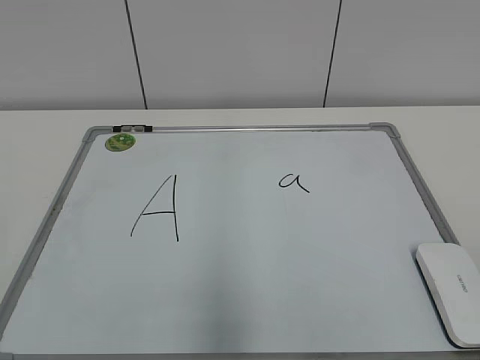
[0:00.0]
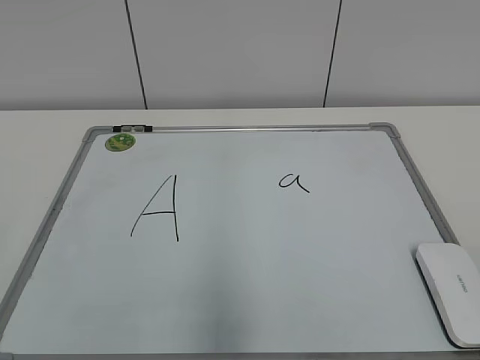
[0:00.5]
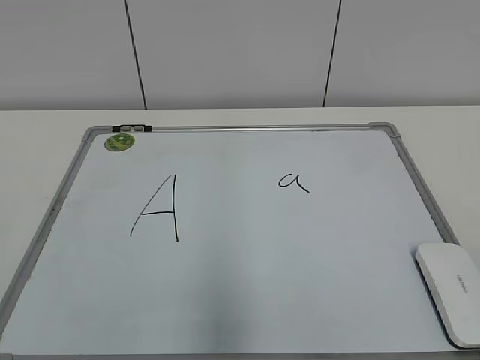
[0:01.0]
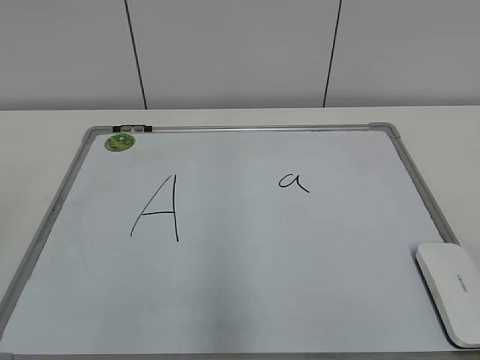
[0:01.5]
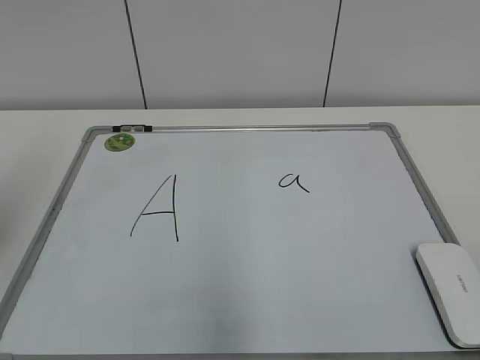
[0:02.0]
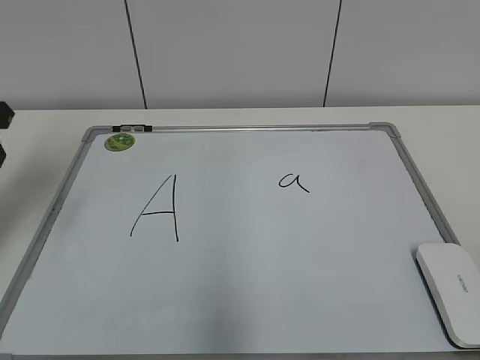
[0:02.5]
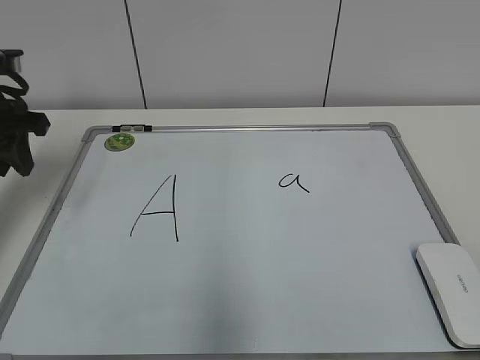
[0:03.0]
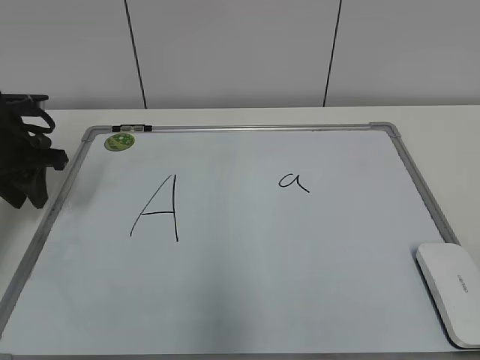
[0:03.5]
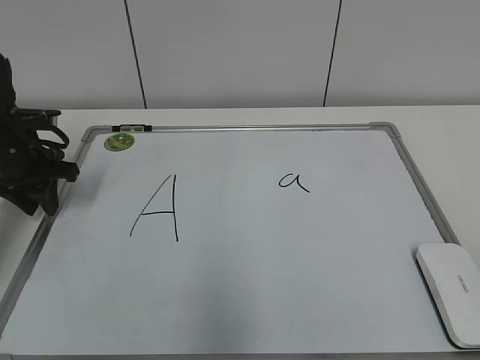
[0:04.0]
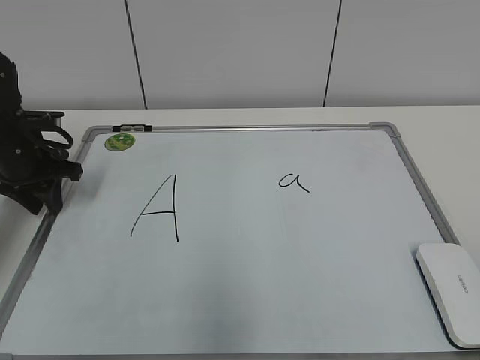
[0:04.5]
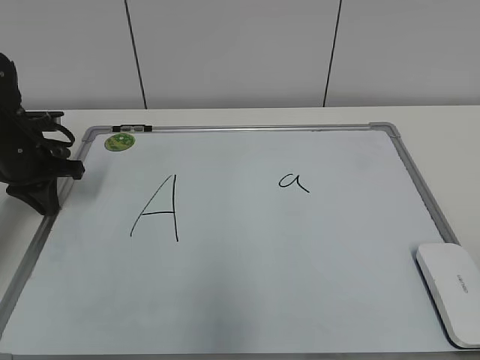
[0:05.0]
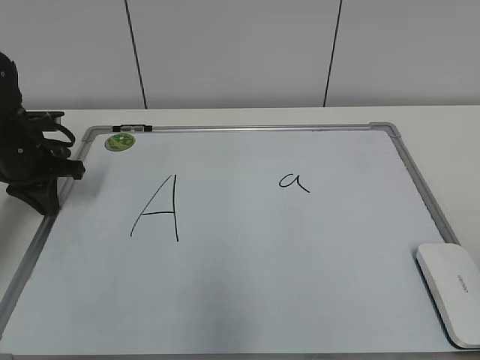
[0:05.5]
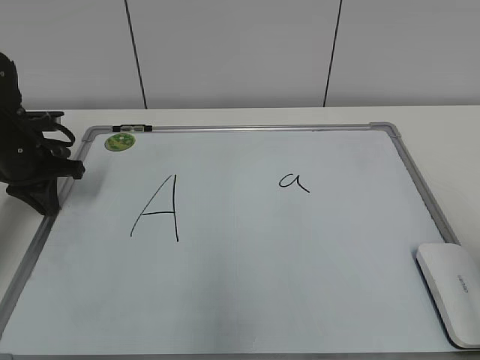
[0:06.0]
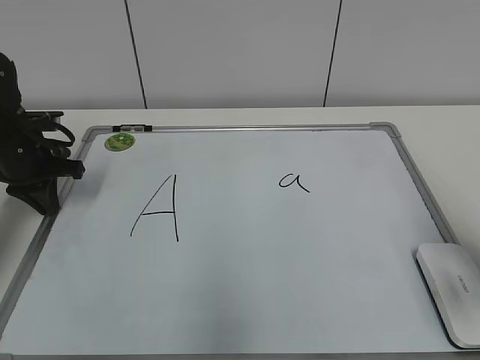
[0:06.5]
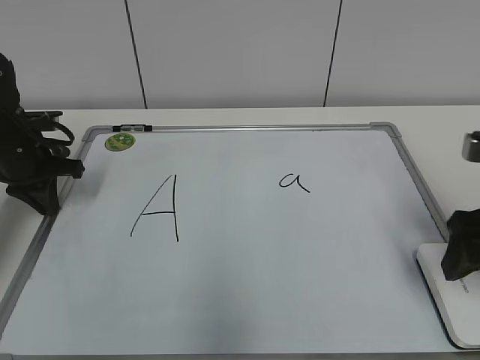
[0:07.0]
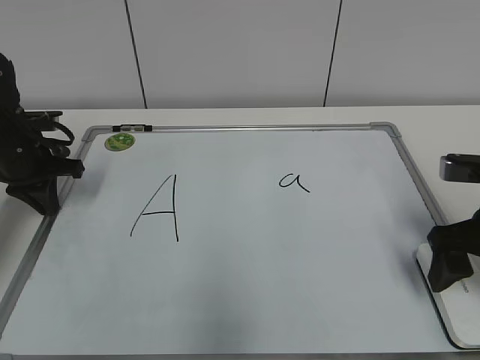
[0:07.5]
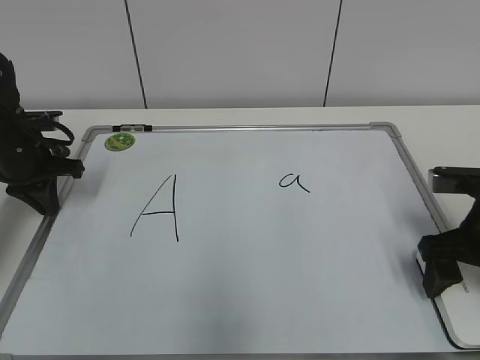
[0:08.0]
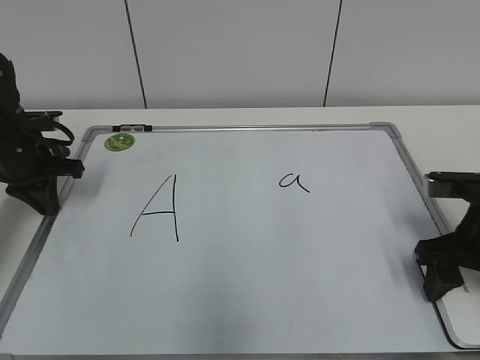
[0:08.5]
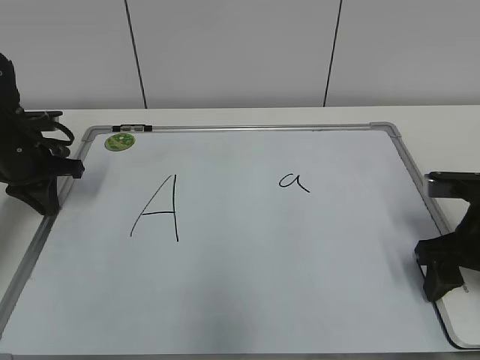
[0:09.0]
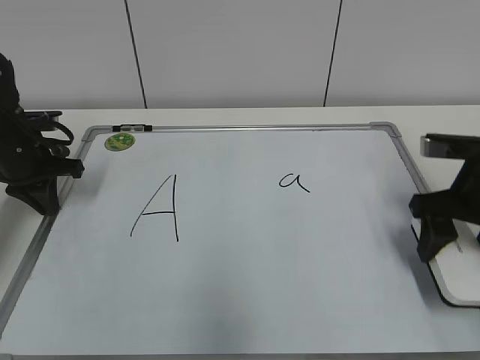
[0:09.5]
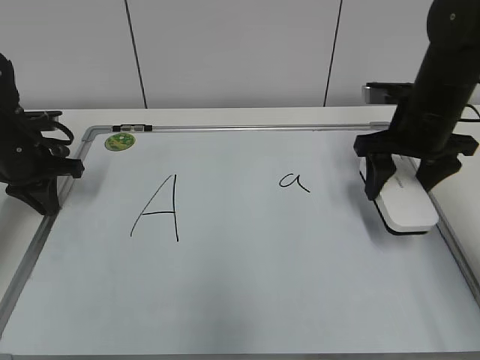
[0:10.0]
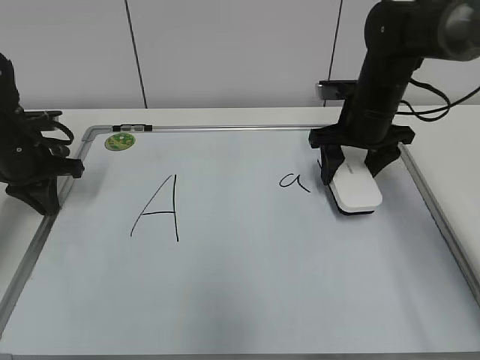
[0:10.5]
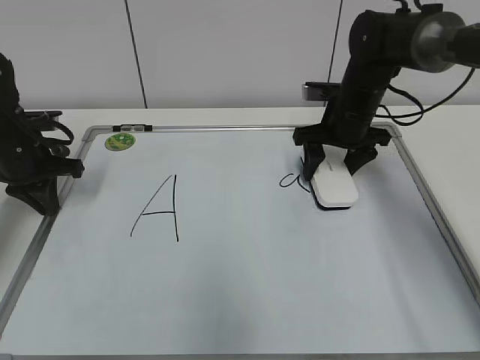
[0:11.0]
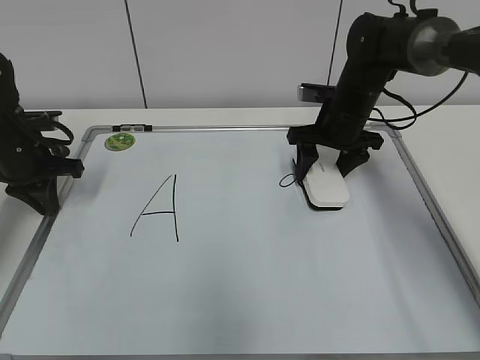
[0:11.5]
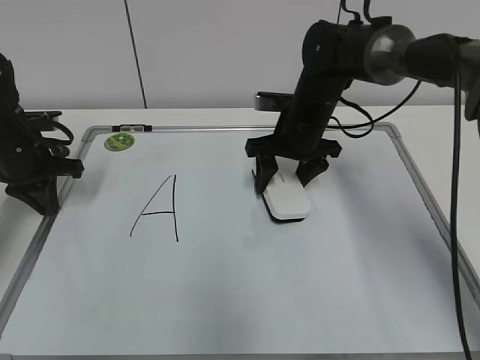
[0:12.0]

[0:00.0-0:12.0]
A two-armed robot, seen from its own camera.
Task of the whole recording: pick up the eraser on the blackboard and erase the letter "a".
Step, 0.0 to 4.5 s: Hold the drawing board steady with your left hand.
Step, 5.0 to 9.0 s: Grab the eraser with your right hand.
2.0 to 4.0 s: The left gripper goes about 25 cm forward and downward.
4.0 to 6.0 s: The left gripper closes.
6.0 to 8.0 s: The right gripper goes approximately 20 cm forward and downward, and opens up.
8.0 to 10.0 s: The right gripper heads forward and upward, covering roughly 15 cm, and closes.
10.0 to 12.0 s: The right gripper shifts about 15 cm to the left, forward and downward.

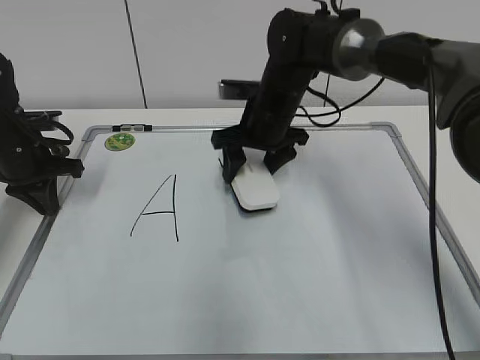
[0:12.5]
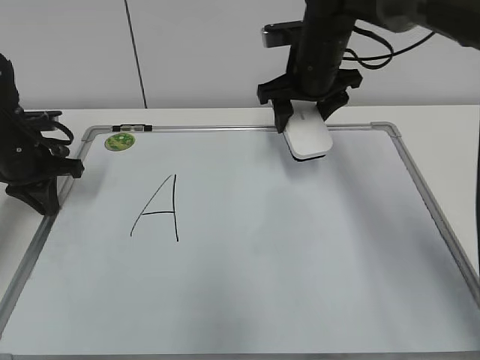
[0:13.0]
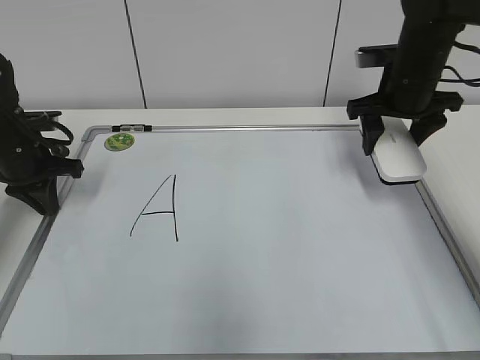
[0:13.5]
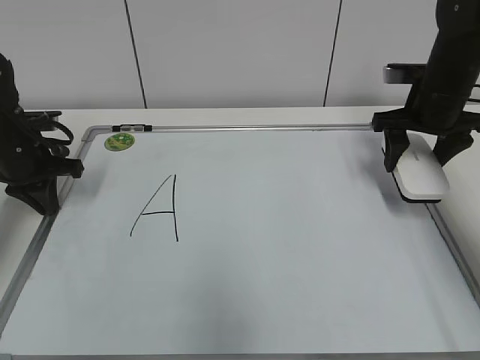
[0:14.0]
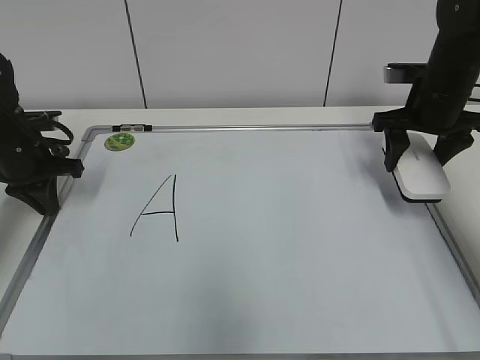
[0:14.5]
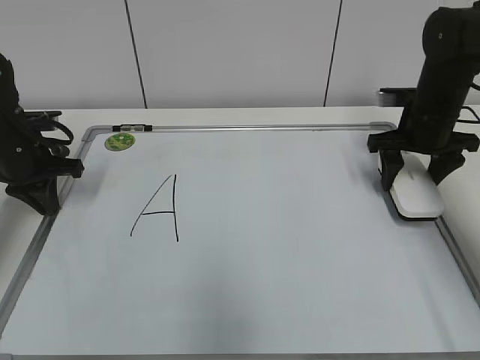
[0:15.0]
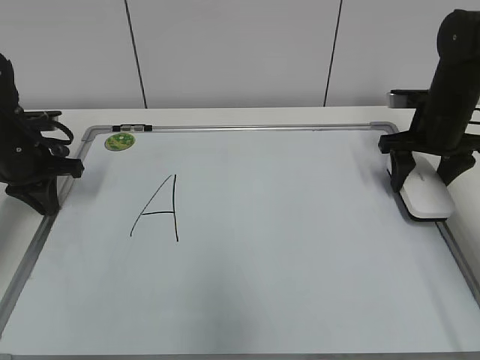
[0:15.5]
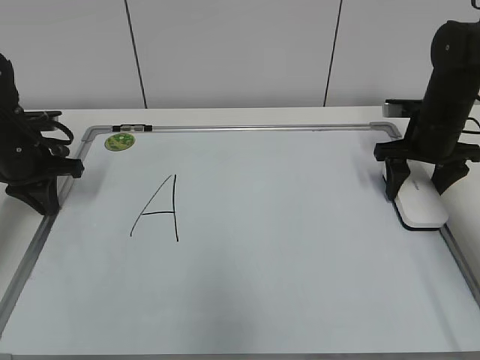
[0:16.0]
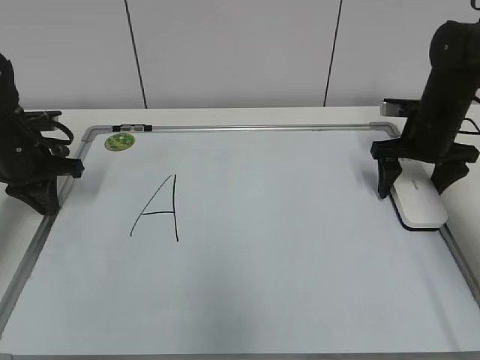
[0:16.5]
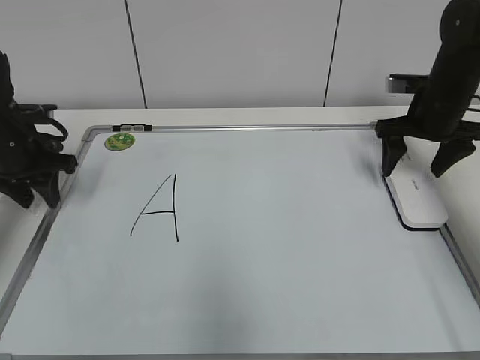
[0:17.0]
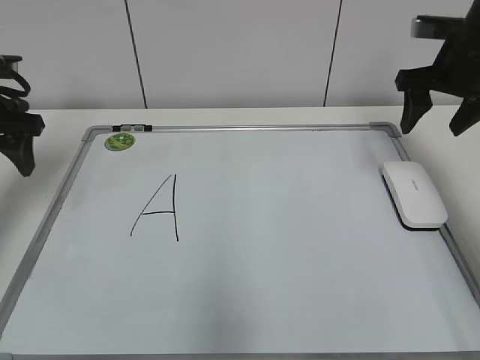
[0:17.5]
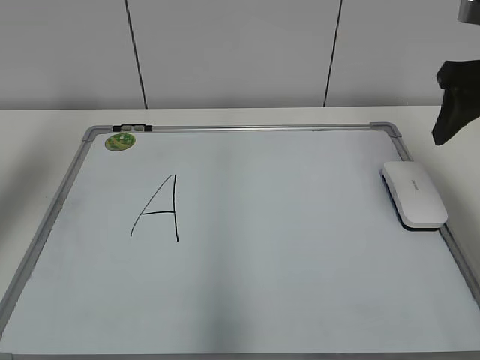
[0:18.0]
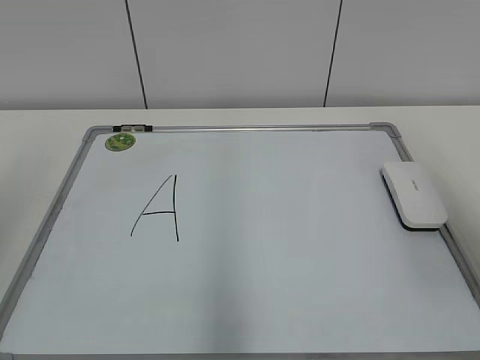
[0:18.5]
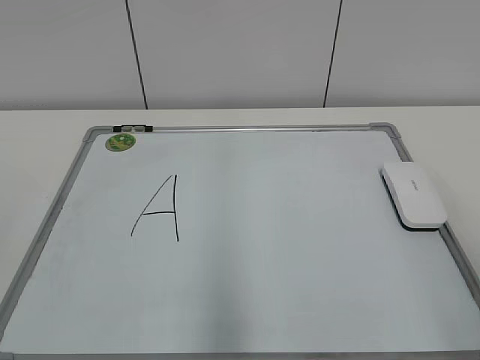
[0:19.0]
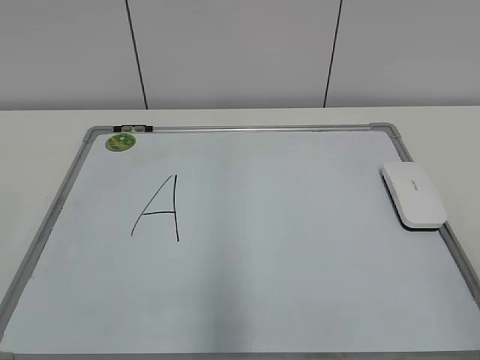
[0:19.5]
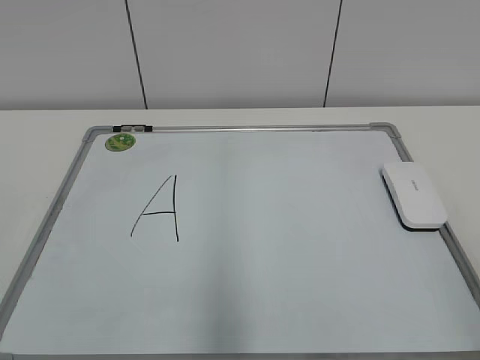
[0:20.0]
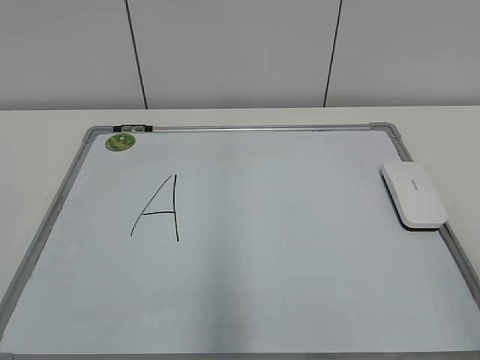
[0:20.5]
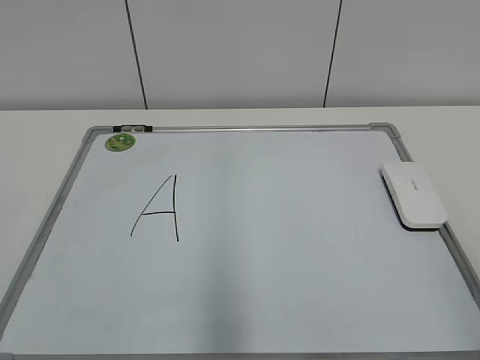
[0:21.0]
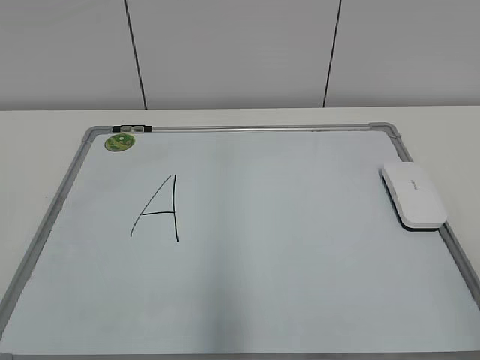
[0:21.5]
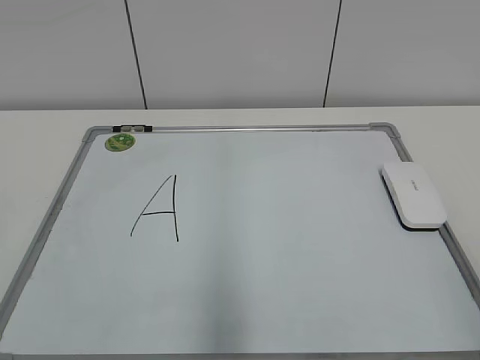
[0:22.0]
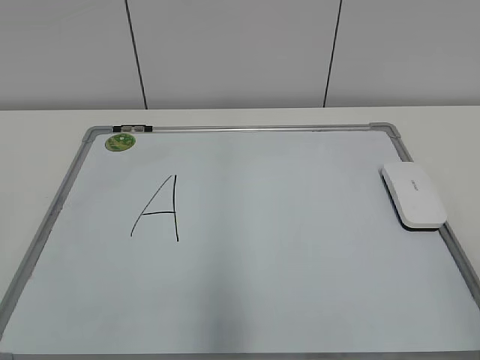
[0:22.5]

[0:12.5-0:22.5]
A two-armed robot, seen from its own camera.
Task of the whole recording: pick up the eraser on the blackboard and erase the letter "a".
12.5 to 14.5 s: The right gripper goes roughly 20 cm to the right.
14.5 to 16.5 s: The right gripper heads downward, covering roughly 5 cm, and opens up.
16.5 to 18.5 s: The grippers both shift backward and upward by approximately 35 cm. The right gripper closes up, while the left gripper opens up.
18.5 to 20.5 s: The right gripper goes some 20 cm backward and downward.

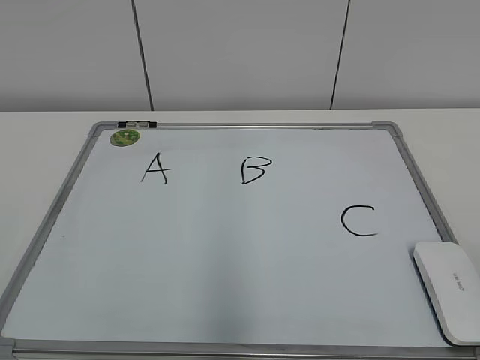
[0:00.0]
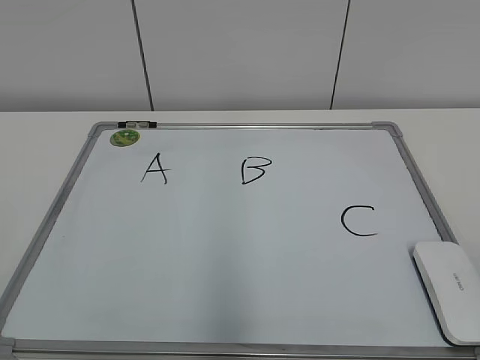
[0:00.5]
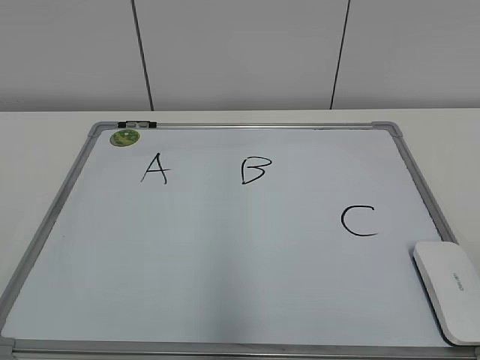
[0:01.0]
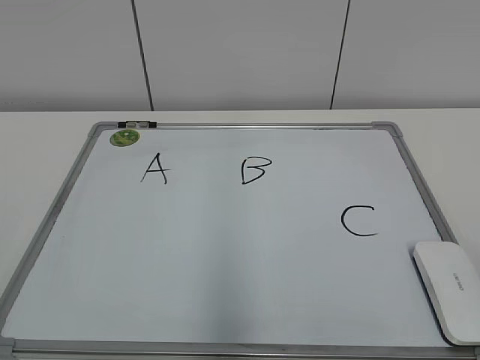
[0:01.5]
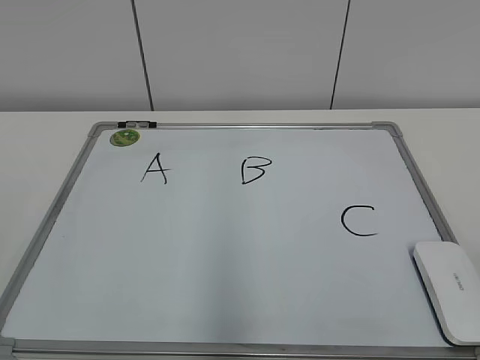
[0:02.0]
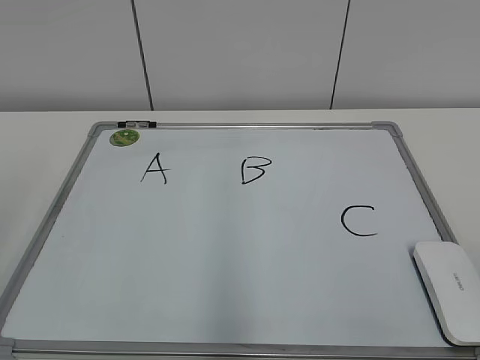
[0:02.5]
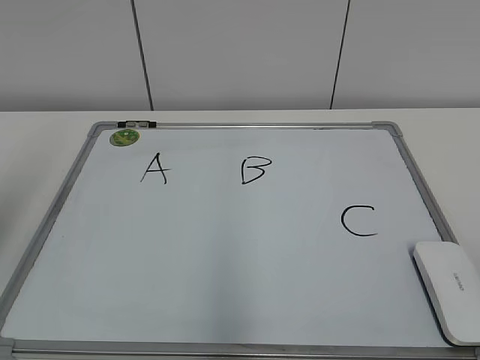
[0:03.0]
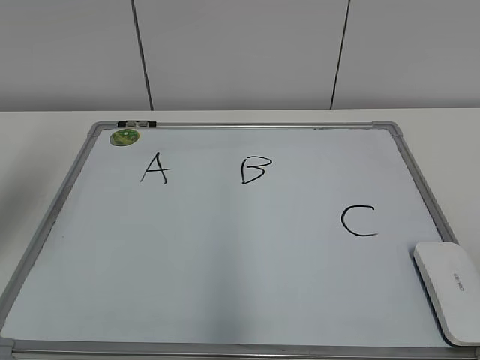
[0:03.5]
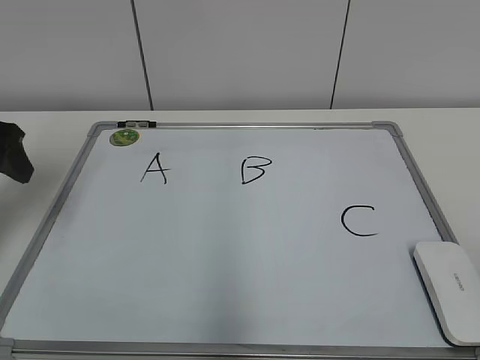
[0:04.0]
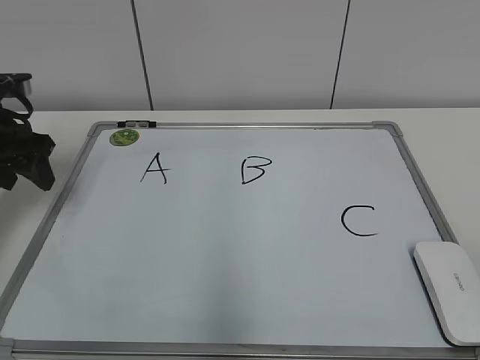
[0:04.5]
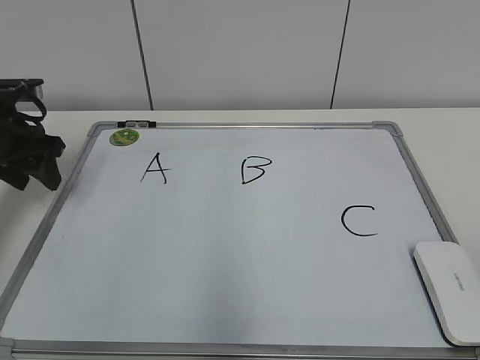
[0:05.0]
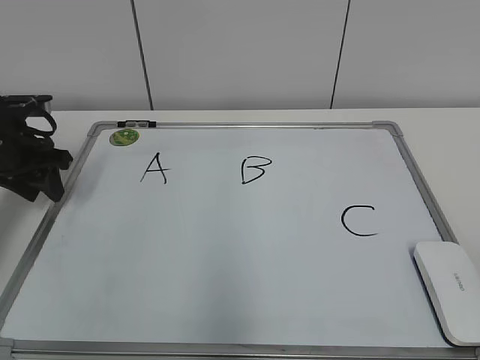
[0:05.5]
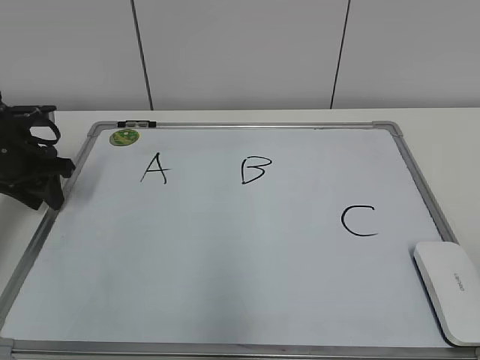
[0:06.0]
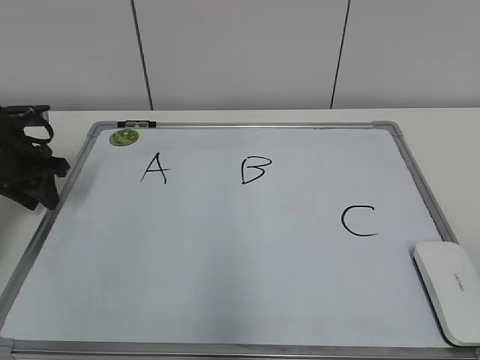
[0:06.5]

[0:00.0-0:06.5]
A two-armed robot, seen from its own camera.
Task of the whole recording: pick up the eraser on the blackboard and erase the letter "B".
2.0 to 4.5 s: The left gripper travels forward by about 35 cm.
4.5 to 6.5 s: The left gripper is displaced downward by some 5 cm.
